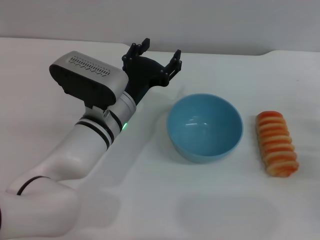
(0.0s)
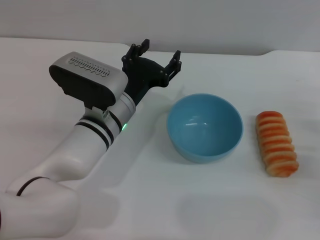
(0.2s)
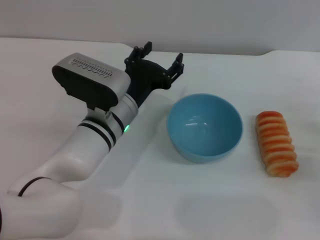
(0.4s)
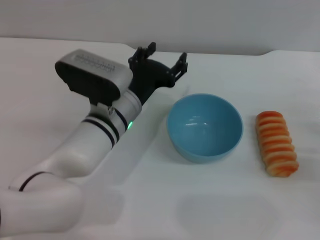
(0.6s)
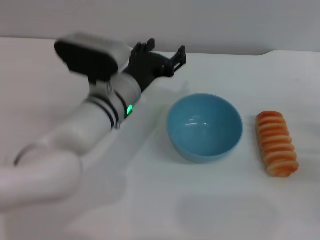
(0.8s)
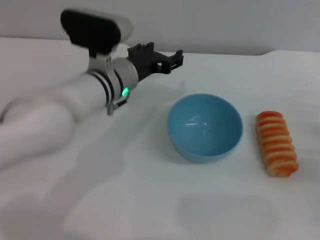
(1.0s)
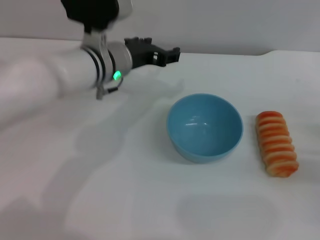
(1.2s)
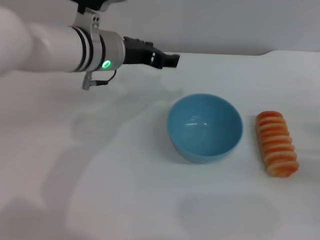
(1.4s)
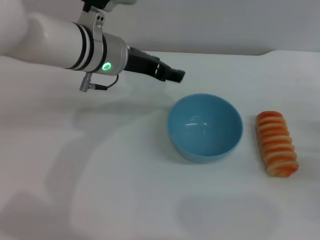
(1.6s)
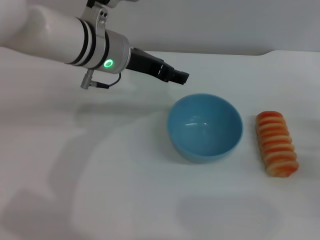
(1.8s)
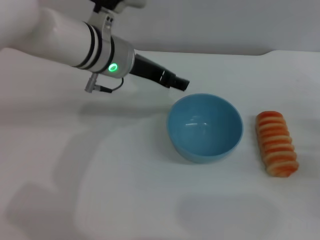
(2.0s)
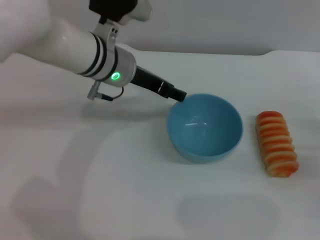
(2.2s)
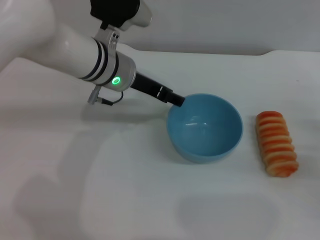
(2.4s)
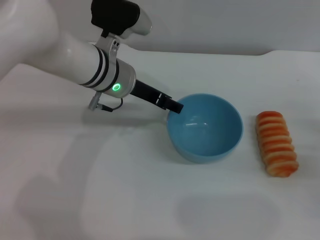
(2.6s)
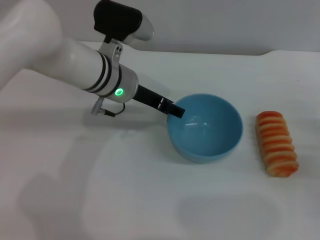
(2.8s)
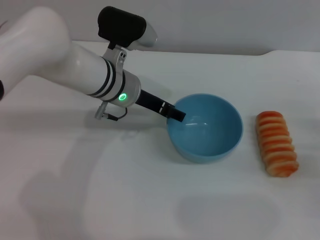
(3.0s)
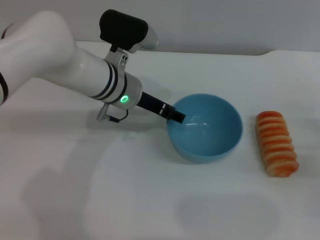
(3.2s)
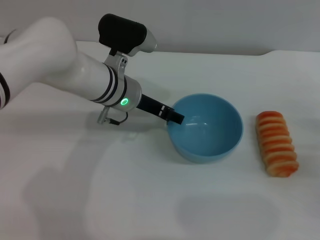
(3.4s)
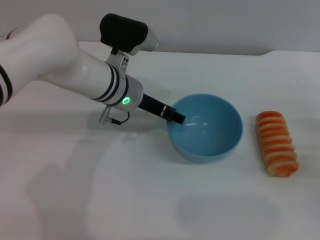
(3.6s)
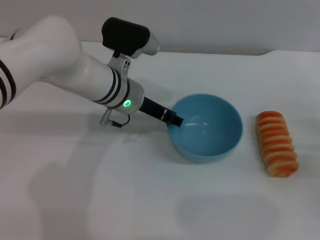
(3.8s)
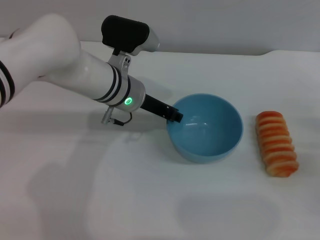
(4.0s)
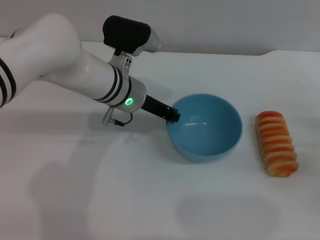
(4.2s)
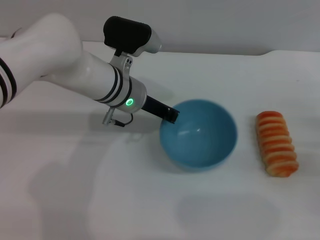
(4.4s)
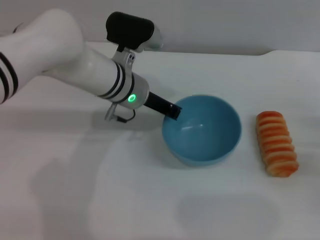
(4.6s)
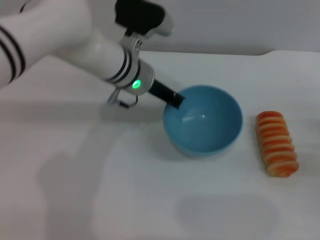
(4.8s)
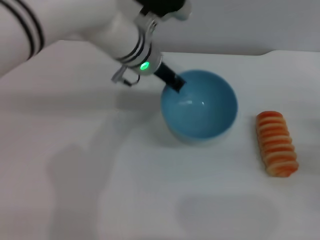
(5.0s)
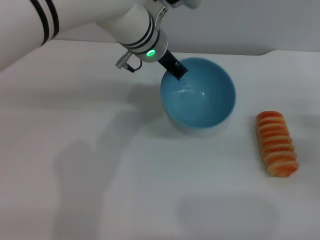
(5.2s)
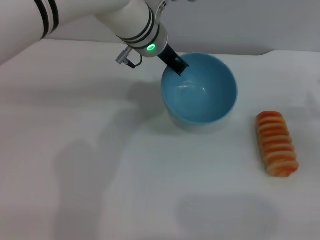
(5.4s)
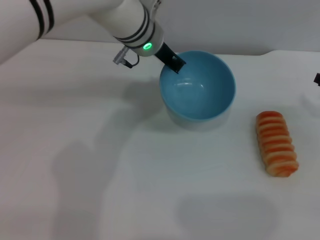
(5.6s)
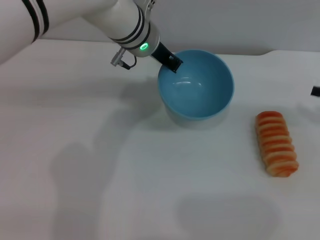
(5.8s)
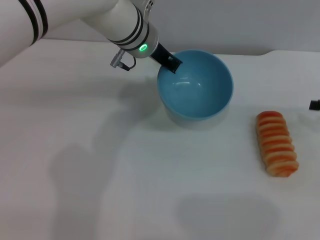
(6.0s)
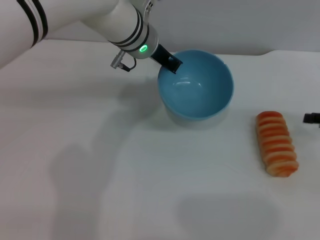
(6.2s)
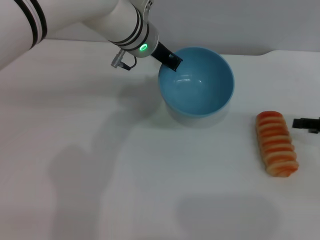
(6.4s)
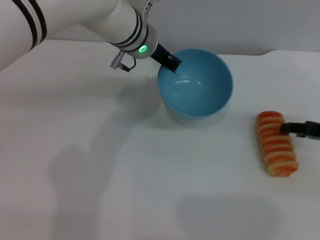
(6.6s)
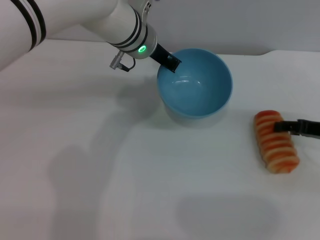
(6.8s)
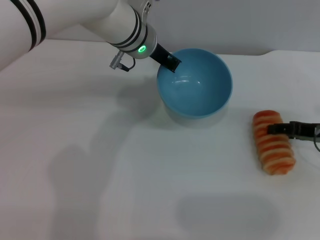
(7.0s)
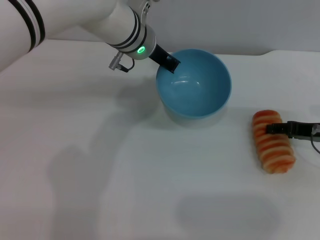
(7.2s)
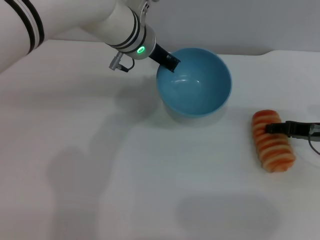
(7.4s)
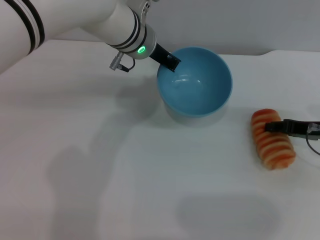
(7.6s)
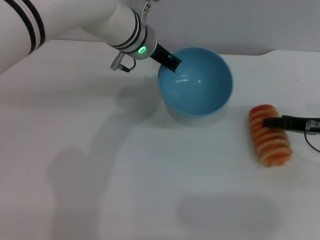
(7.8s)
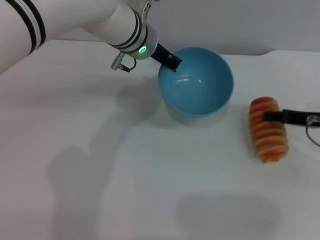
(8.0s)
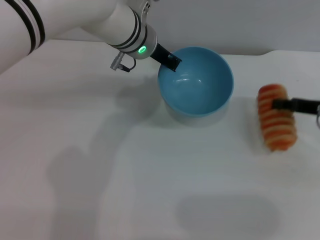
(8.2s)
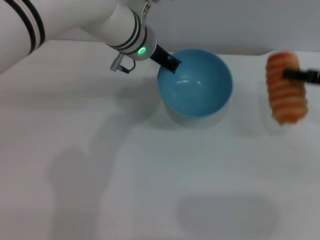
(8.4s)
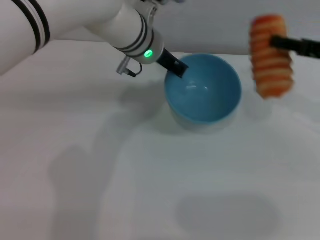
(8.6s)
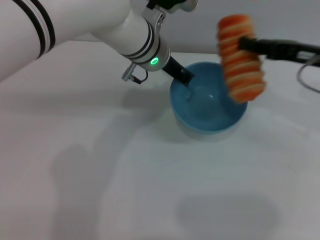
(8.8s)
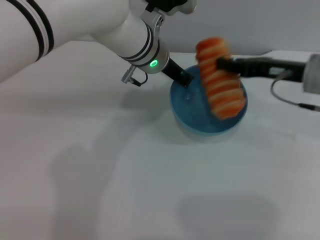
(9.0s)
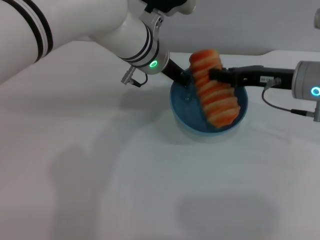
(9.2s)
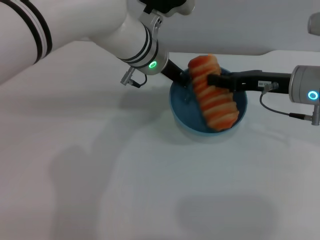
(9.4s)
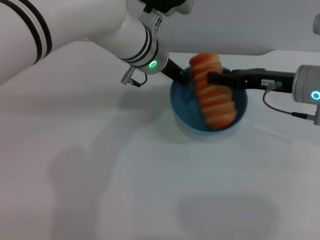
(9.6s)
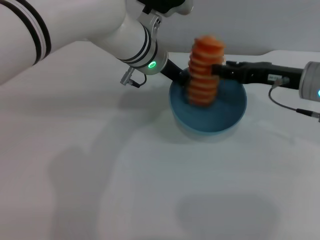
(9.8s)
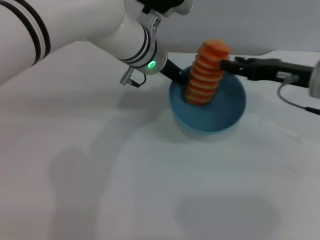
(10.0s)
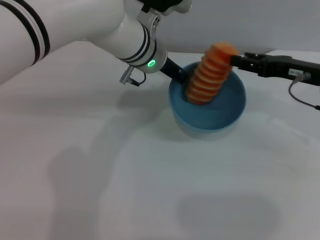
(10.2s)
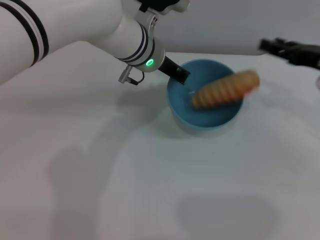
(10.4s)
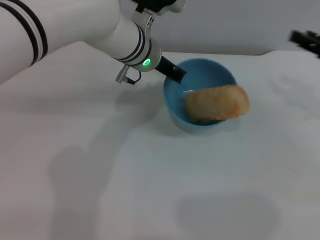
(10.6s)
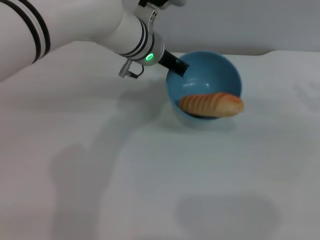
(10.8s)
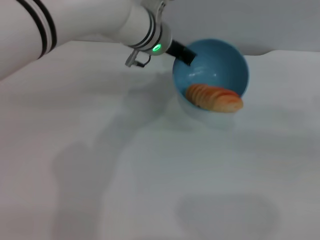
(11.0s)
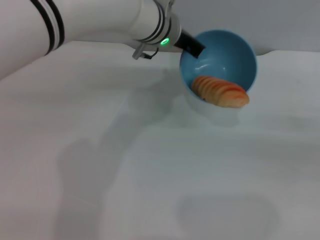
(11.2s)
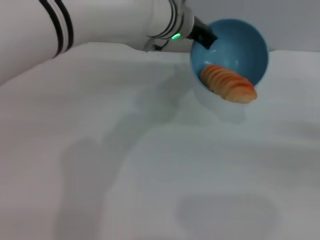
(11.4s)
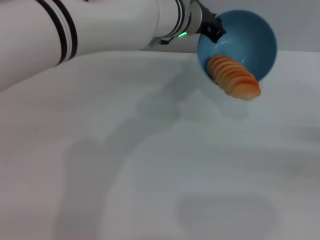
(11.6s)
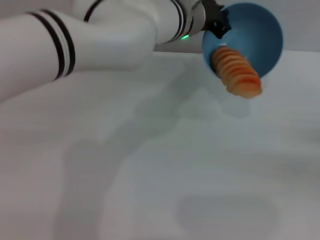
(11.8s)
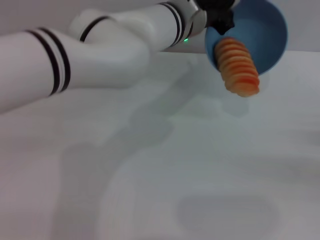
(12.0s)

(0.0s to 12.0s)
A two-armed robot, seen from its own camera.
Task of the whole recording: put the bread into the blue bowl and pour it out repeatedly.
Step, 0.0s - 5.6s: Pick up the bowl with the left gripper.
Step, 5.8s - 8.4s: Pick up the bread with the right gripper.
Step, 8.6s - 10.4s: Place the bread into the bowl.
0.0s - 1.6s: The left gripper heads upward and forward, covering roughly 10 cm.
1.6s - 3.0s: The left gripper travels downward by about 5 cm.
3.0s - 4.4s: The left gripper closes.
4.4s - 6.0s: Both grippers move upward and forward, approximately 10 cm.
6.0s - 7.6s: The right gripper moves to the left, roughly 5 cm.
7.6s - 9.0s: The right gripper goes some 10 cm upward and to the left, and closes.
9.0s - 10.4s: The right gripper moves to the right, roughly 5 cm, and opens up.
10.4s - 12.0s: The right gripper is displaced to the right, backward and downward by roughly 20 cm. Meanwhile the left gripper shifts by approximately 5 cm.

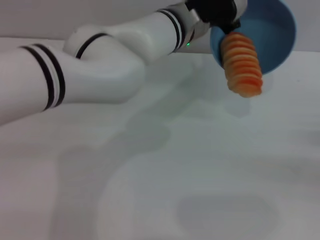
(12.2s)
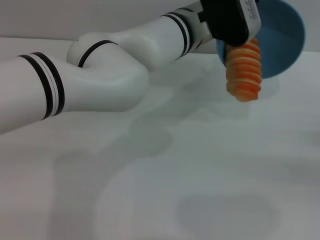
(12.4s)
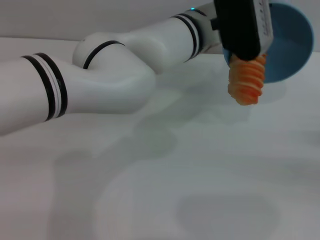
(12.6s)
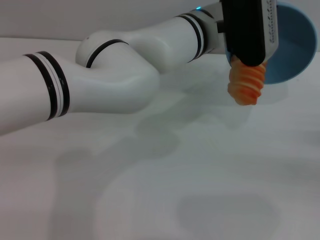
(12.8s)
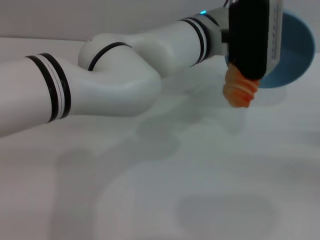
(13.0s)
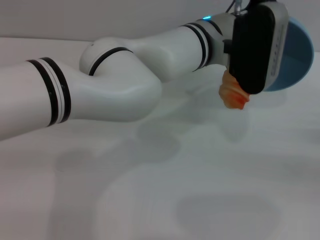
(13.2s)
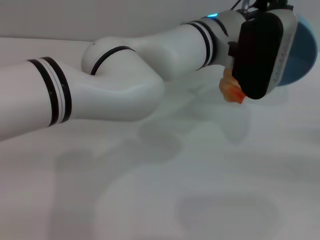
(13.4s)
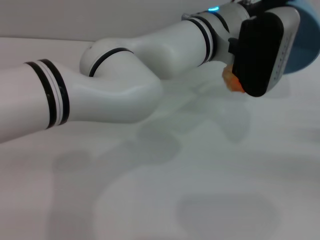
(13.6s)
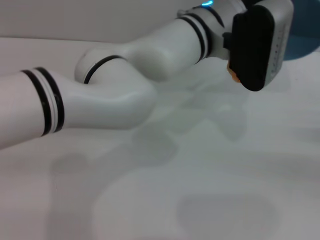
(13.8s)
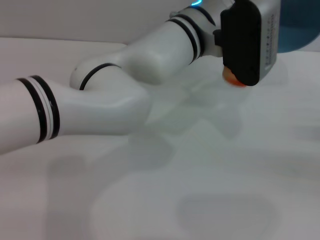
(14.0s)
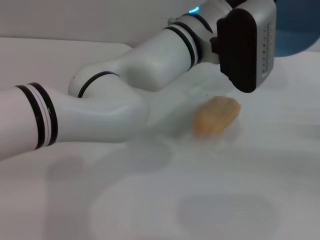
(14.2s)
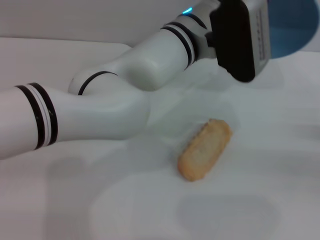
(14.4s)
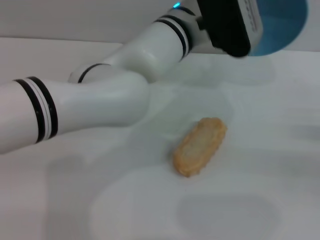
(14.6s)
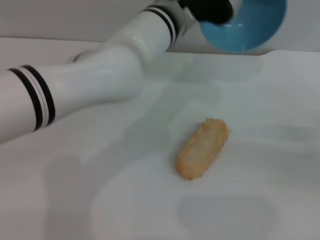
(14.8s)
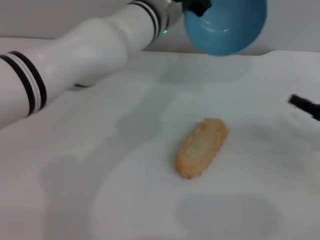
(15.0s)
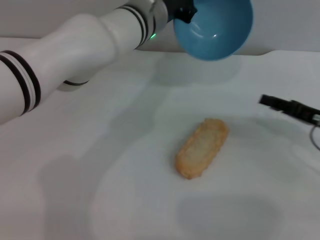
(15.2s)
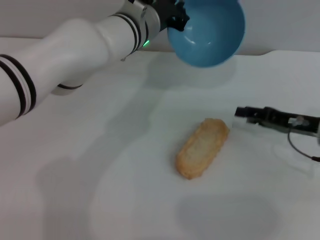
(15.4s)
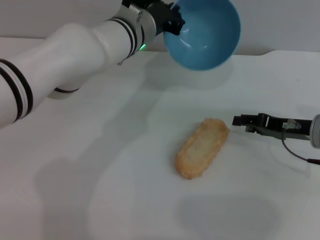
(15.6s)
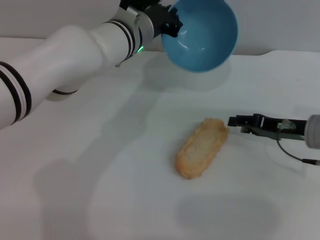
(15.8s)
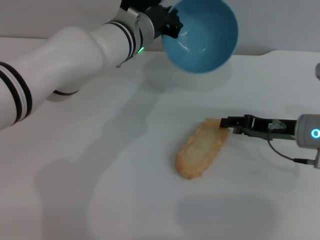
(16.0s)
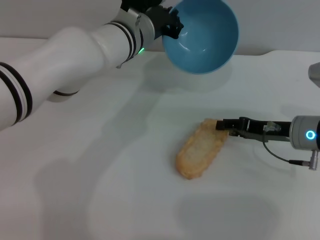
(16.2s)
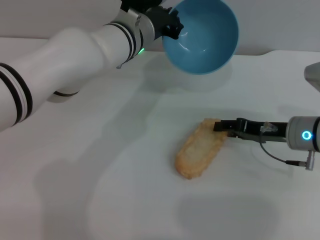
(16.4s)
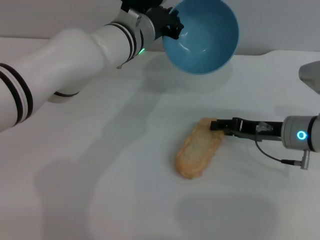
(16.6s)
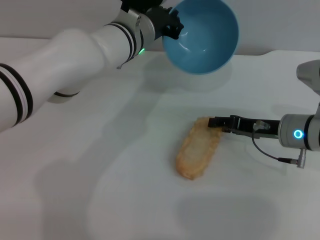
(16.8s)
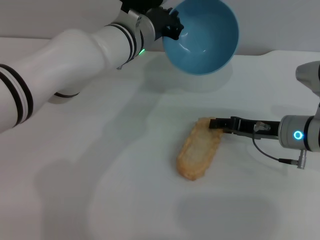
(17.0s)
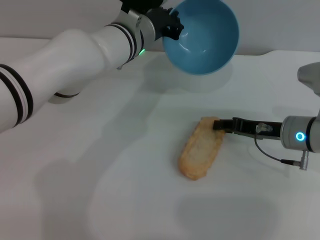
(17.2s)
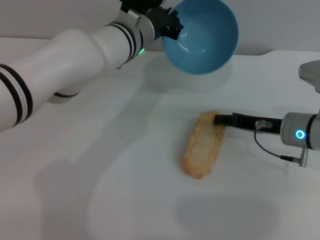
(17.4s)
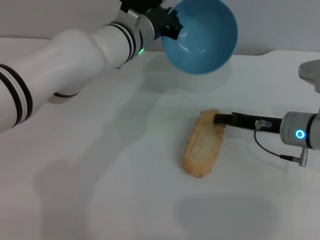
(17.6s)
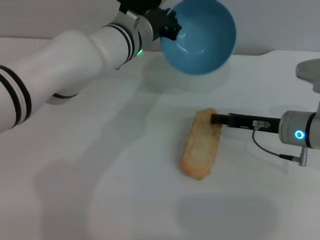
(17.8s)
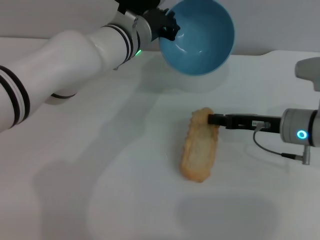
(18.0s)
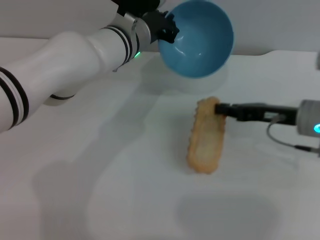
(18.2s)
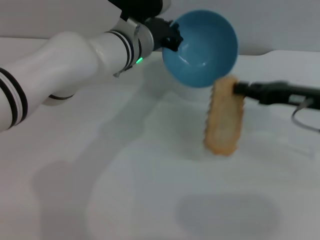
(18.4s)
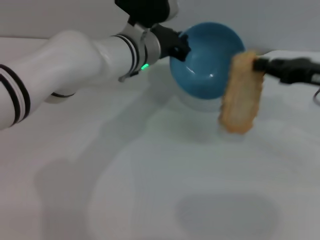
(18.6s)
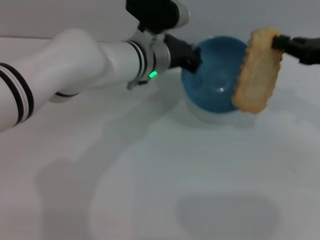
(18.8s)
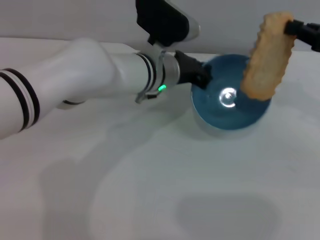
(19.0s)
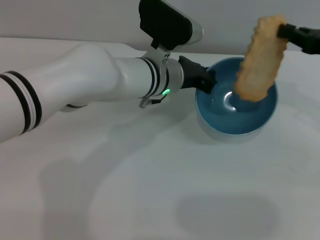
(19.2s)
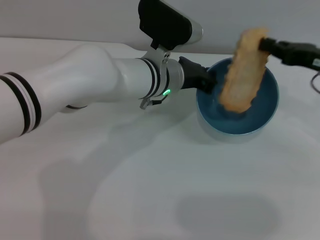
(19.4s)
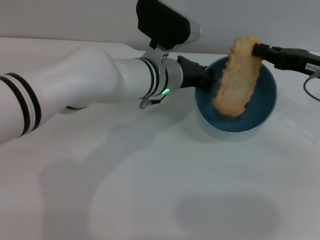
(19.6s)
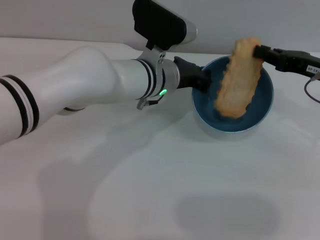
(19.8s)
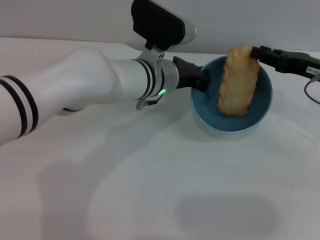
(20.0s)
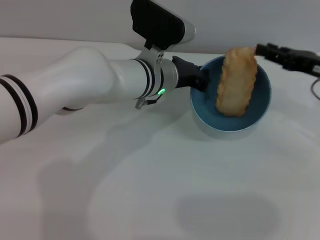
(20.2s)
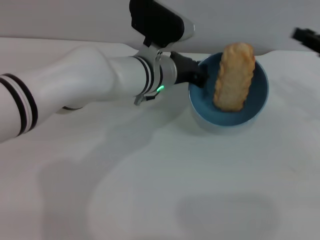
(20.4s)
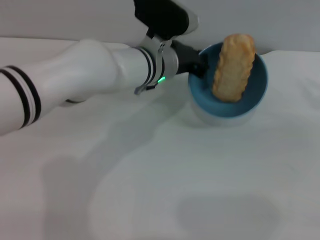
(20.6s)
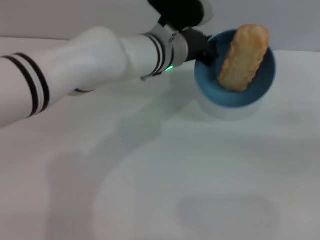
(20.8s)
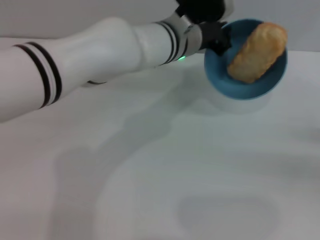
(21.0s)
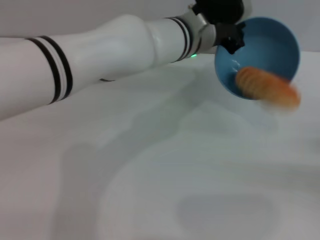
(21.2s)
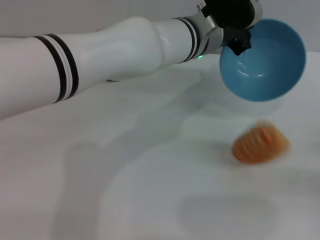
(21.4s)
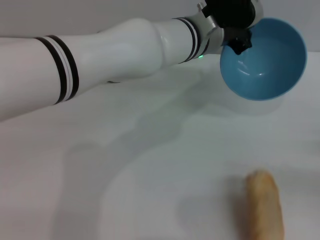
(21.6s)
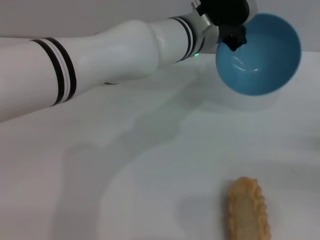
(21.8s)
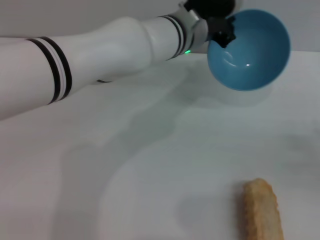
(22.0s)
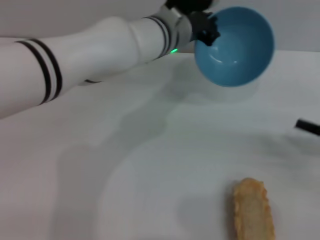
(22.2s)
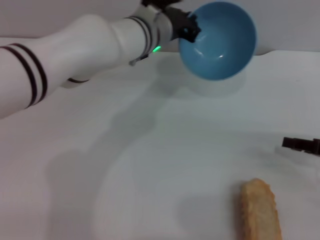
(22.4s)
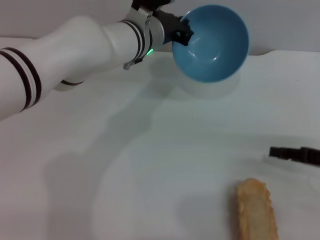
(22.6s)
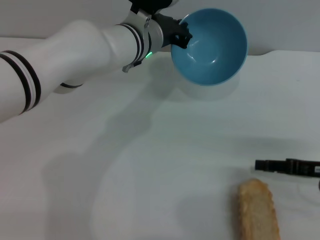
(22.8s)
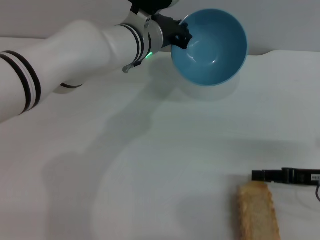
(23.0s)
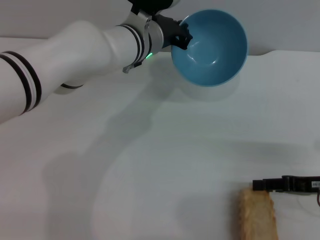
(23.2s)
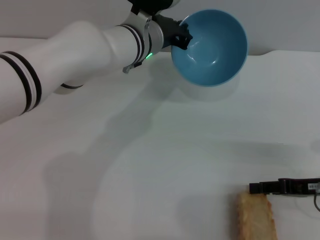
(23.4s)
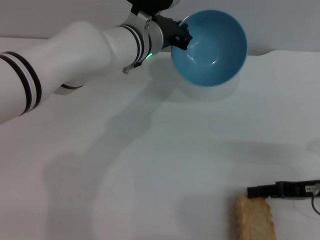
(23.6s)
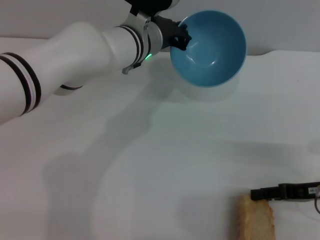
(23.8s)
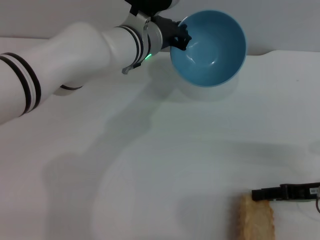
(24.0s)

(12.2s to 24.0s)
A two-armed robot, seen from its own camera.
Task of the whole recording: put the bread into the blue bowl and pour it out repeatedly.
Step, 12.2s - 14.2s: Pour the bread out of the bowl.
Step, 14.4s - 18.6s: Pick up the bread with the right gripper.
Step, 18.8s - 20.2s: Place the bread into the bowl.
Step, 20.4s - 21.6s: Pour the bread out of the bowl.
12.2s - 13.6s: The left gripper ends up some 5 cm from where it was.
13.6s - 15.2s: The right gripper shifts roughly 15 cm to the left and forward, while the left gripper travels to the left by approximately 10 cm.
15.2s - 16.6s: The right gripper heads to the left, covering roughly 10 cm.
16.6s - 18.2s: The right gripper closes up.
18.2s - 19.6s: The left gripper changes place by roughly 5 cm.
19.6s - 21.0s: The left gripper changes place by approximately 5 cm, while the right gripper is displaced to the right, backward and downward by approximately 20 cm, and opens.
21.0s - 22.6s: The left gripper moves to the left, some 5 cm. Meanwhile the right gripper shifts approximately 10 cm to the left.
22.6s - 24.0s: There are only small adjustments of the grippers.
